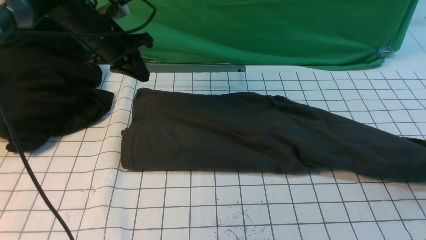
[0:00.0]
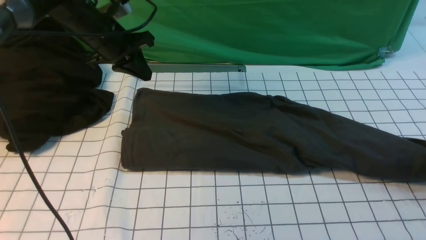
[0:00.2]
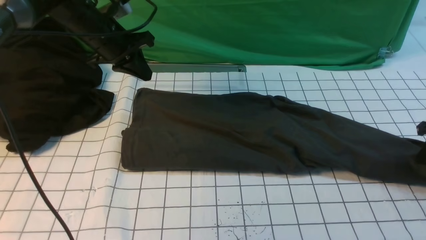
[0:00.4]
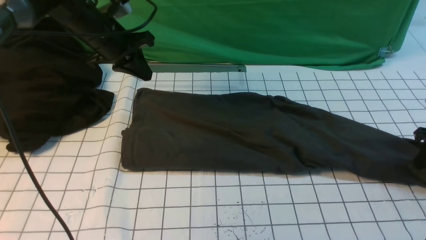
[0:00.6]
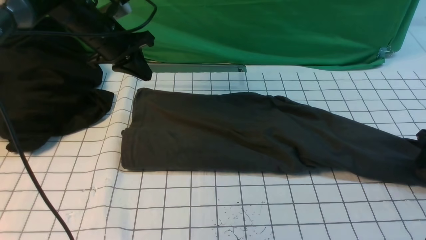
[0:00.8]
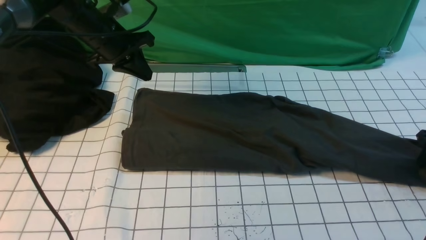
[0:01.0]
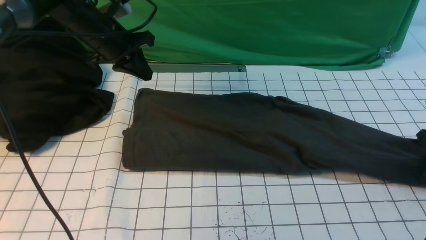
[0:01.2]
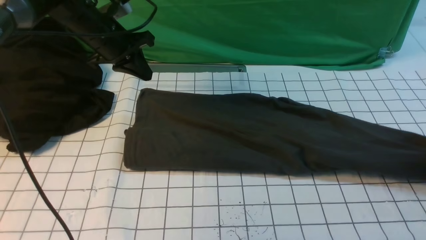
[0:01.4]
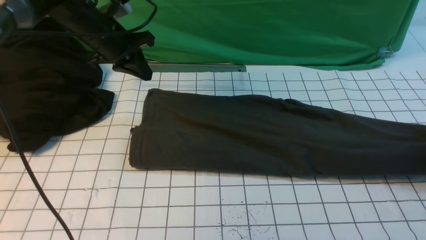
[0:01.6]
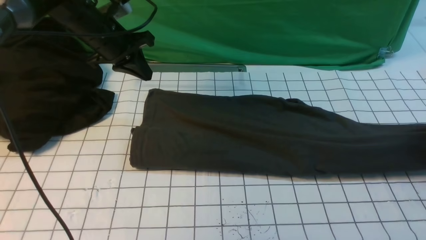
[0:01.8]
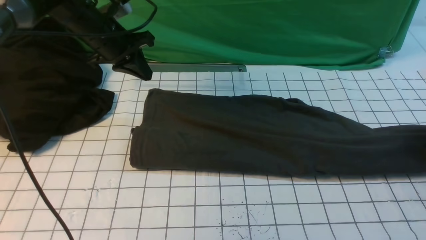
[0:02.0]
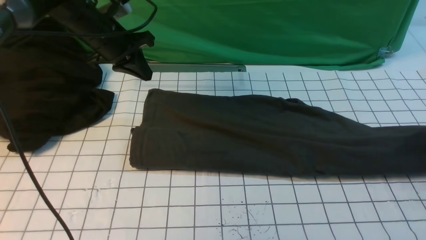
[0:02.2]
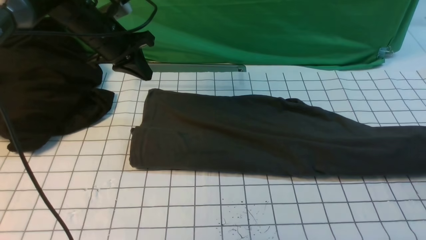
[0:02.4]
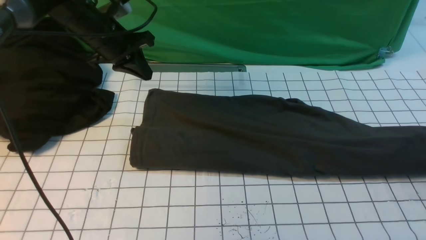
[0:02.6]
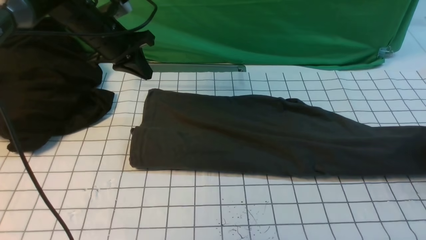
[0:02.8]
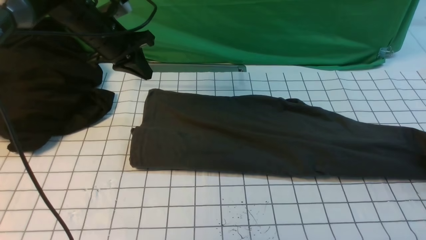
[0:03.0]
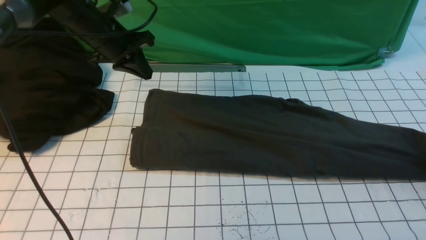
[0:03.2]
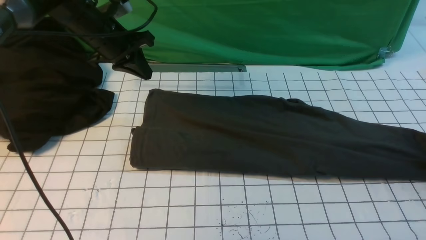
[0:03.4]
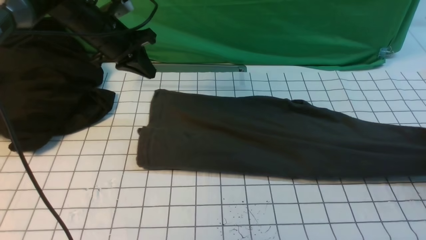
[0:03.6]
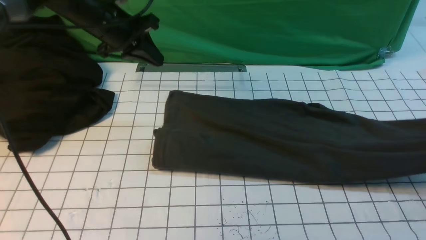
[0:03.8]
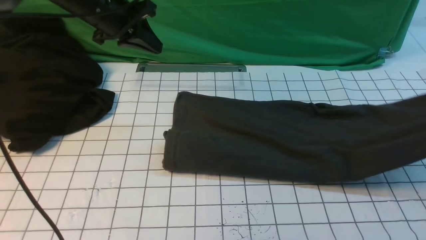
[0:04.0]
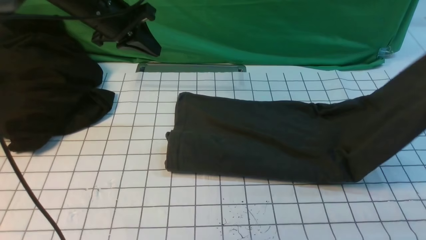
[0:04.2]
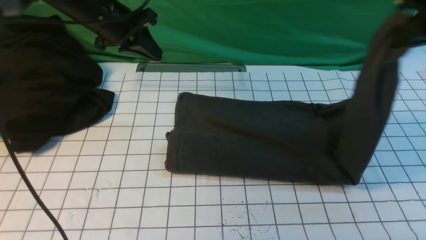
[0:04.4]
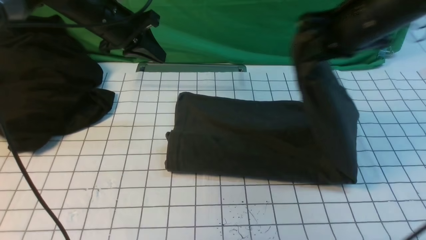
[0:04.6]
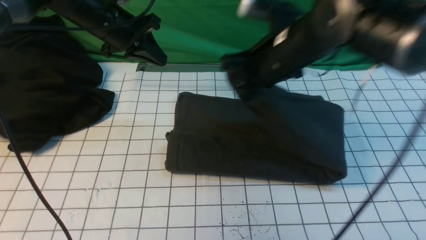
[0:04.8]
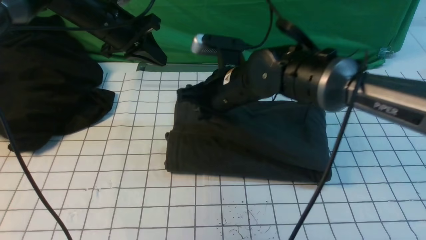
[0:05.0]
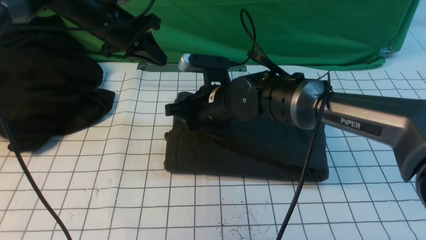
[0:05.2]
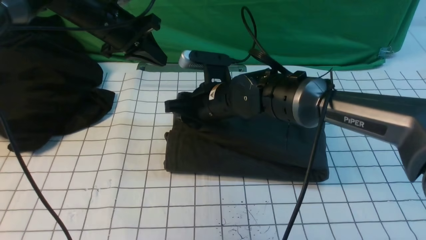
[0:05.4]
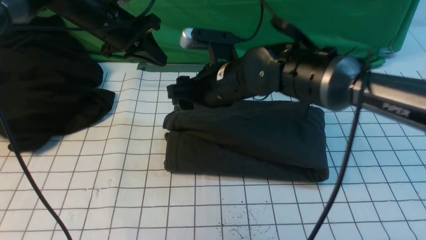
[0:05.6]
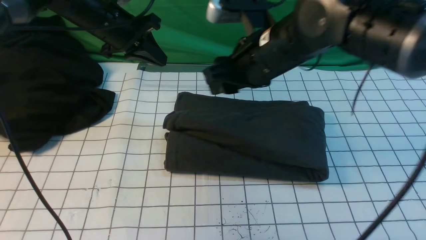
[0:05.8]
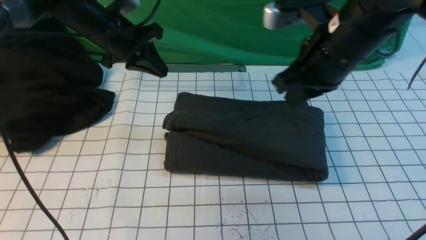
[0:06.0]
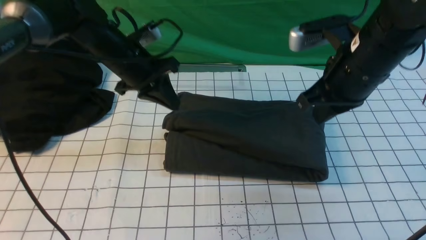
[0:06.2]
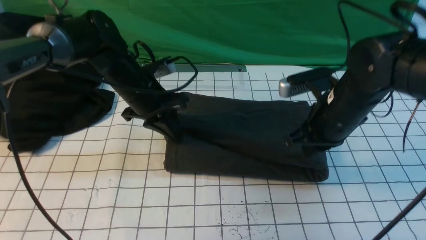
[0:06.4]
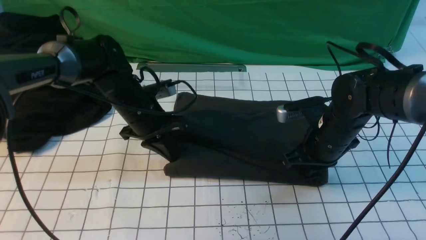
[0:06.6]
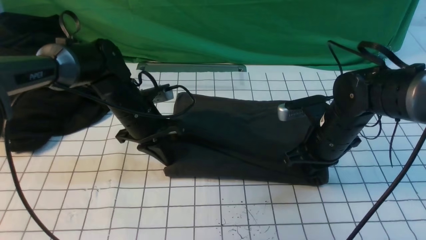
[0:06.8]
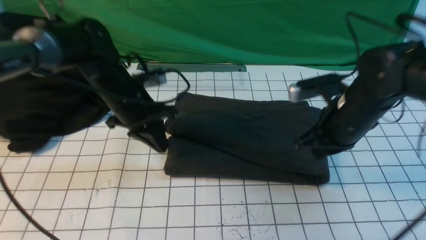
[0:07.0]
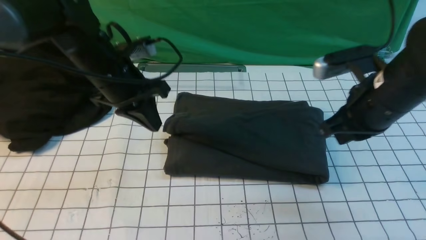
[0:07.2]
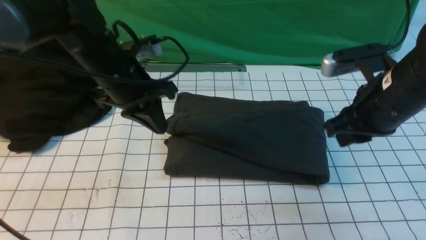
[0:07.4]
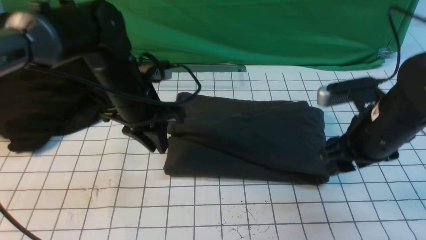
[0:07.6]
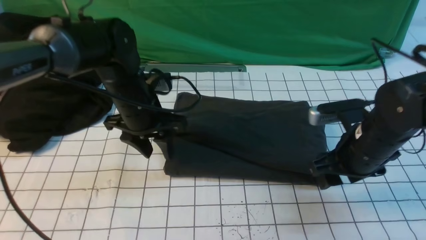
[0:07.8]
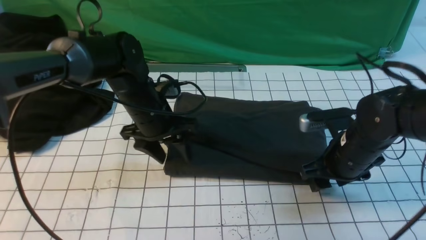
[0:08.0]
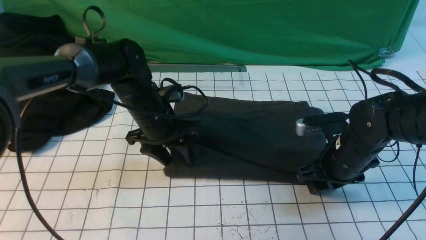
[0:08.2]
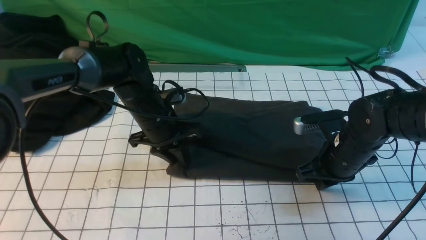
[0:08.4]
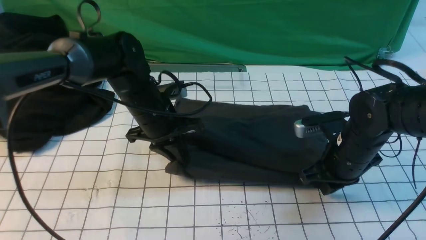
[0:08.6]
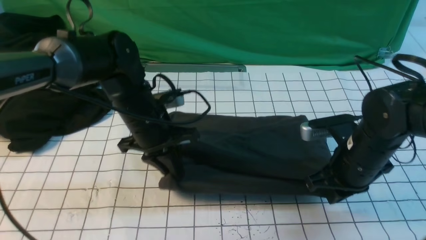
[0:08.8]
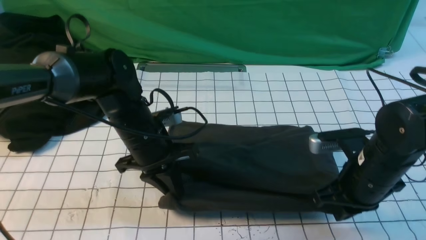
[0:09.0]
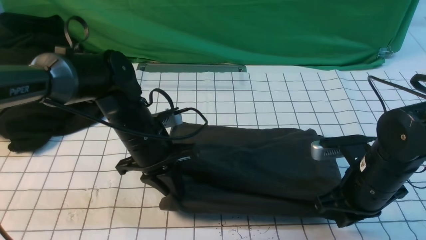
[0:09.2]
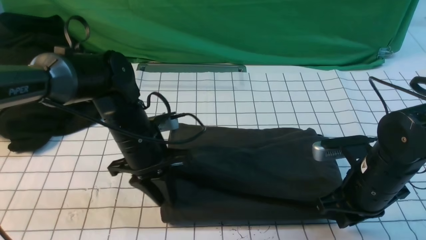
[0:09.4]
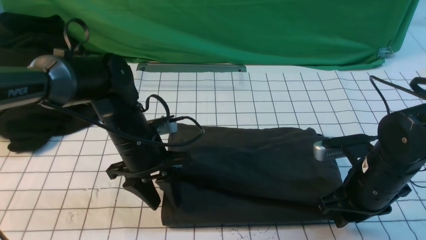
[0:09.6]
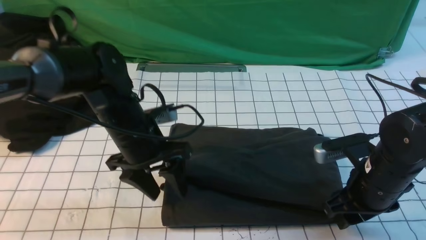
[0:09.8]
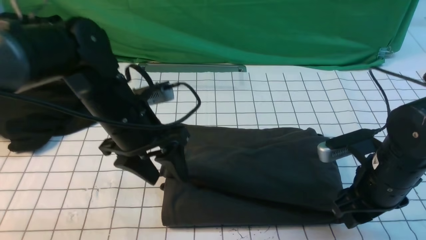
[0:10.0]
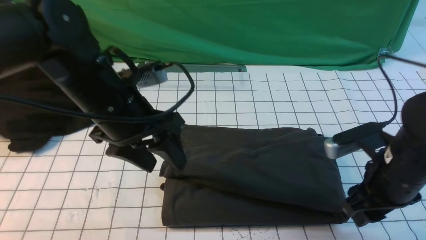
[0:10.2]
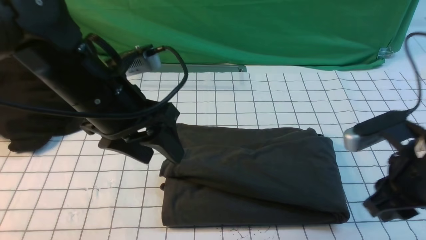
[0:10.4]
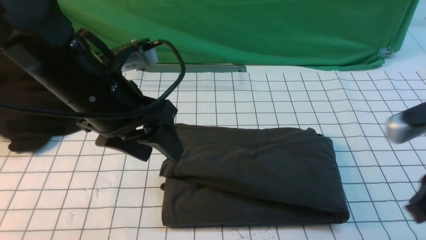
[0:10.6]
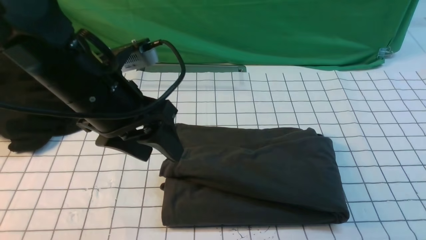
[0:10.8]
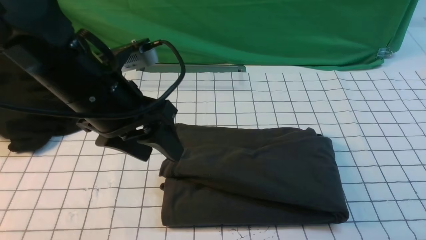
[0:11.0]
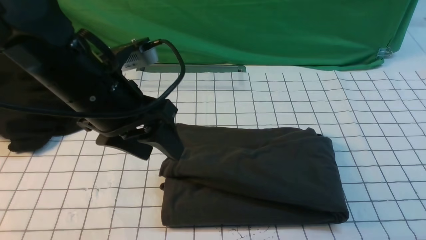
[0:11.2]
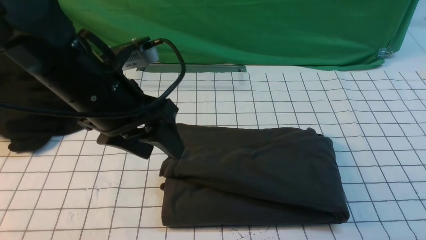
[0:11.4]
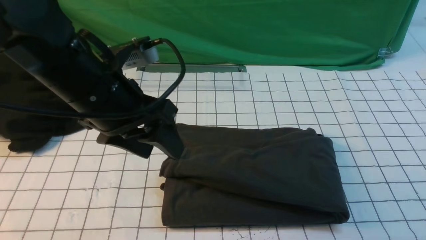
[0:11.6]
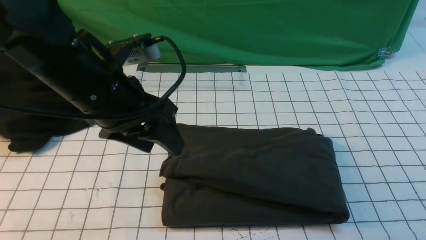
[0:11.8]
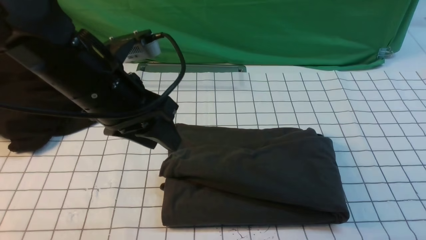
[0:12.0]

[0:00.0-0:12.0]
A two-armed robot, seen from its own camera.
Step, 0:00.0 to 0:03.6: use the right arm to clamp the right edge of the fabric.
Step, 0:03.8 to 0:05.8: use the right arm to drag the right edge of the fabric to the left and folds it over the left edge.
0:00.0 to 0:01.6: The right gripper moves to the right, roughly 5 cm, and opens, then closes again.
0:01.6 to 0:03.0: The right gripper shifts by approximately 5 cm, and opens up.
0:03.0 to 0:04.4: The right gripper moves upward and to the left, approximately 30 cm, and closes up.
0:04.4 to 0:06.0: The right gripper moves to the left and downward, approximately 15 cm, and opens, then closes once more.
0:06.0 to 0:07.6: The left gripper travels backward by some 10 cm, and opens up, while the right gripper travels downward and to the right by about 10 cm, and opens its fingers.
0:07.6 to 0:09.0: Both grippers move downward, some 5 cm. The right gripper closes. Meanwhile the left gripper opens, then closes once more.
0:09.0 to 0:10.4: Both grippers travel together upward and backward, roughly 10 cm. The right gripper opens and closes again. The left gripper opens.
0:10.4 to 0:12.0: The right gripper travels backward and to the right by approximately 15 cm, and closes. Meanwhile the left gripper closes its fingers.

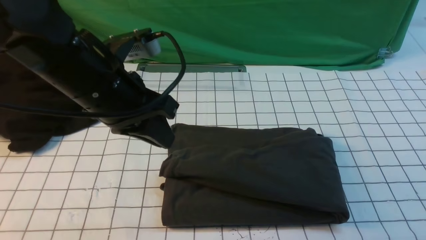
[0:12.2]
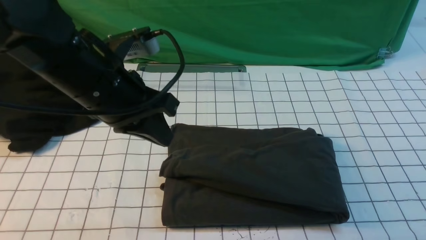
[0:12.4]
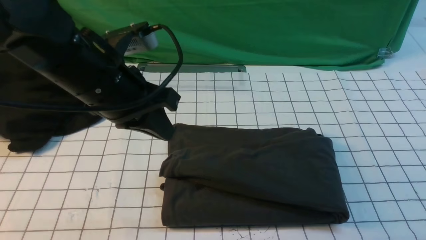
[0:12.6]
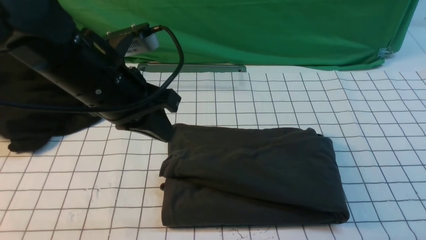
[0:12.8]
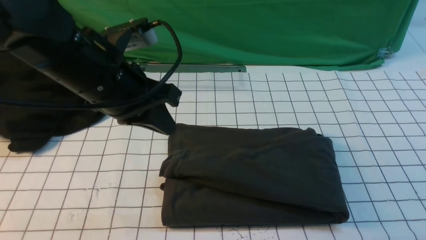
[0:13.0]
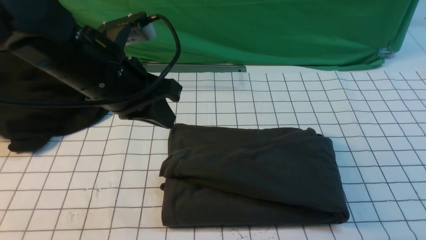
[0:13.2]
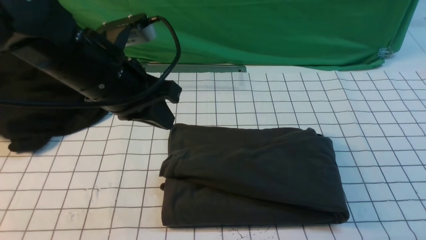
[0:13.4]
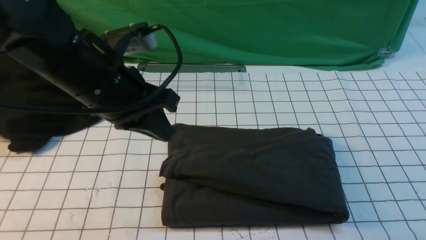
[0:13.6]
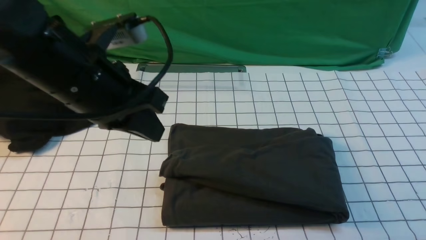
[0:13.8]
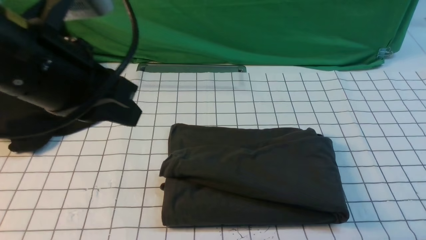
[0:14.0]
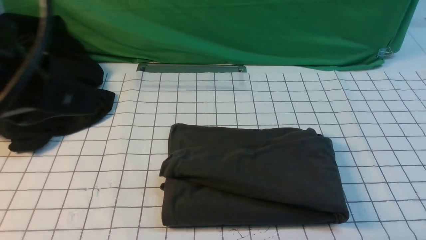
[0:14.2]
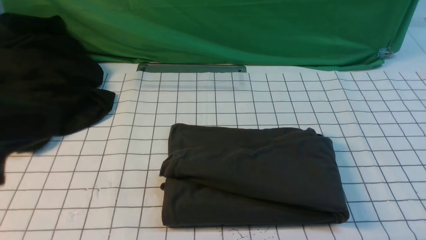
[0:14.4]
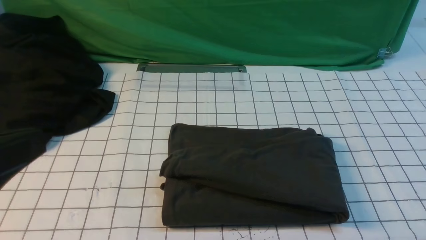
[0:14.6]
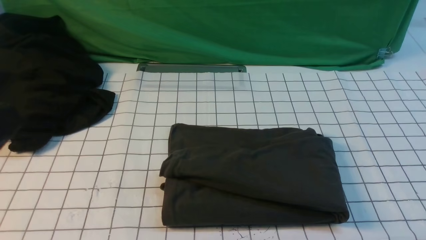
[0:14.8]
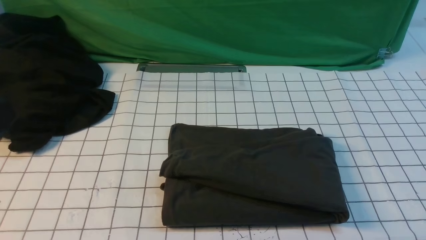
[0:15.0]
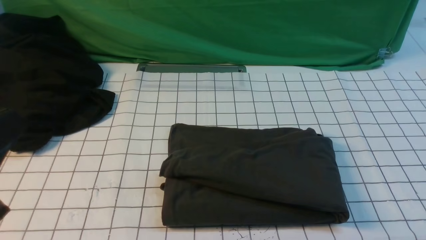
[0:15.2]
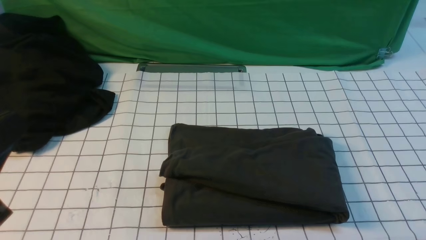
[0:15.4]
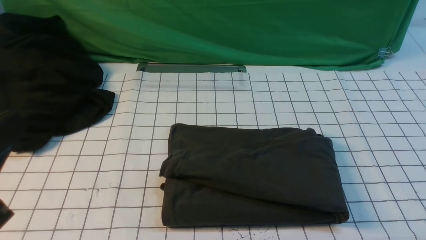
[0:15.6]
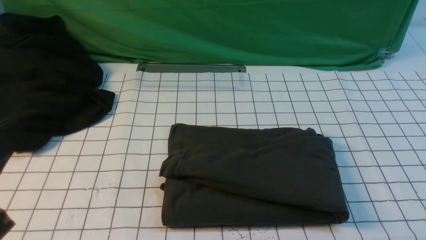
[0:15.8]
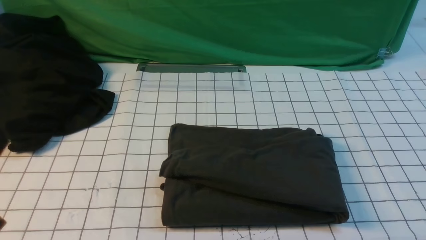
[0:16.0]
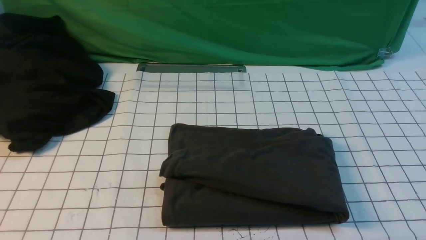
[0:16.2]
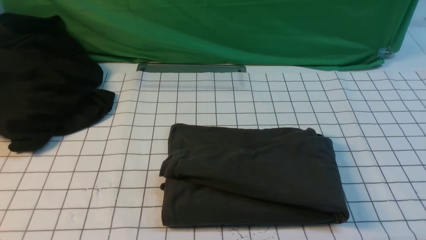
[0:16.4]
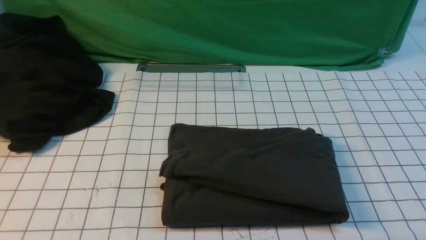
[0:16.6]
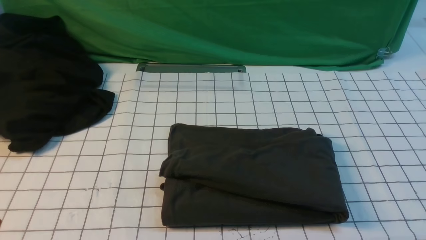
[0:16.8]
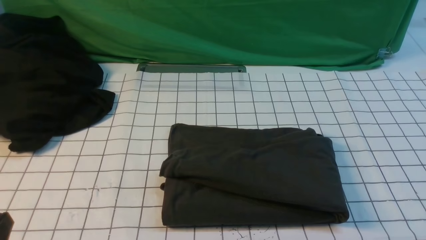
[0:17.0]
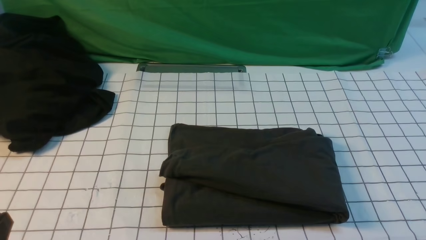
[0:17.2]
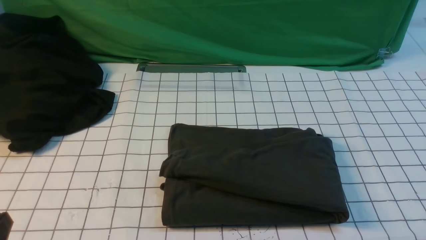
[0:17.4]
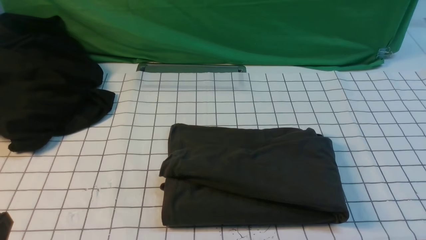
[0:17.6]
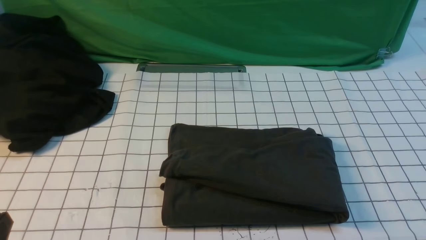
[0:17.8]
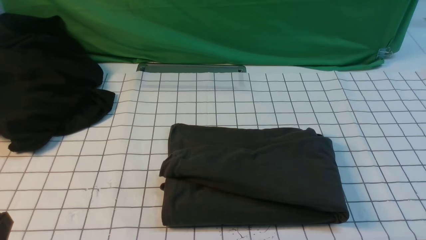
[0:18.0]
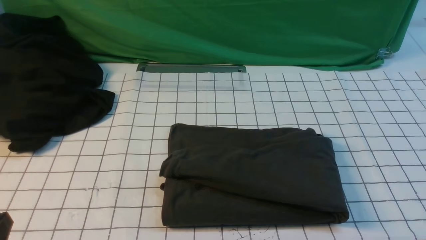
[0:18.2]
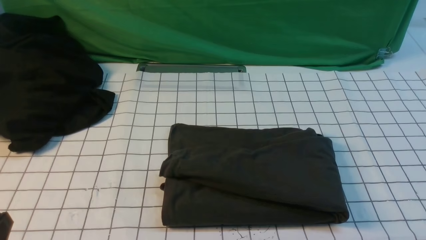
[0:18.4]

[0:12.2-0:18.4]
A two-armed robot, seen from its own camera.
0:12.2 to 0:13.8: The right gripper shifts approximately 10 cm downward, while the left gripper ends up about 5 cm from where it was.
0:13.8 to 0:15.4: The left gripper shifts some 20 cm backward and to the left.
0:16.8 to 0:18.4: Neither gripper changes place.
